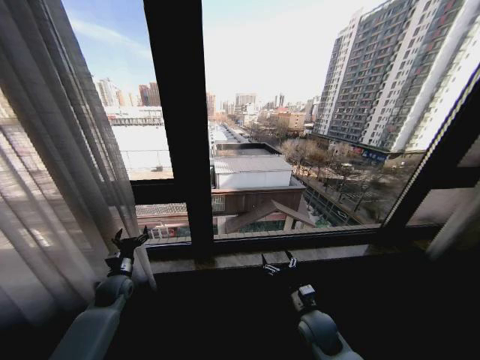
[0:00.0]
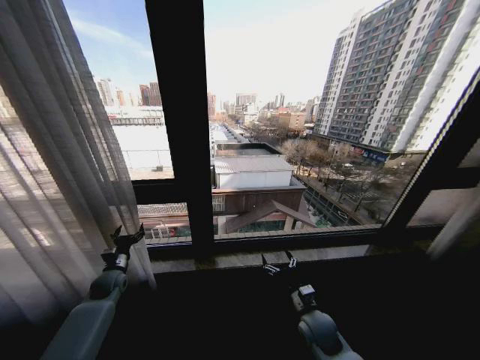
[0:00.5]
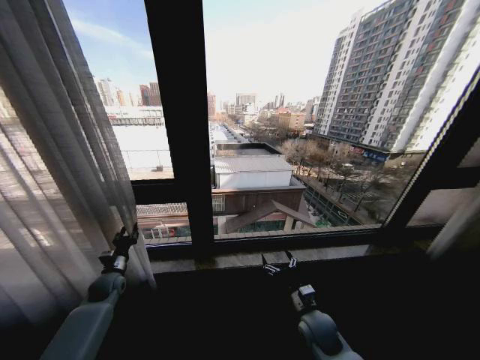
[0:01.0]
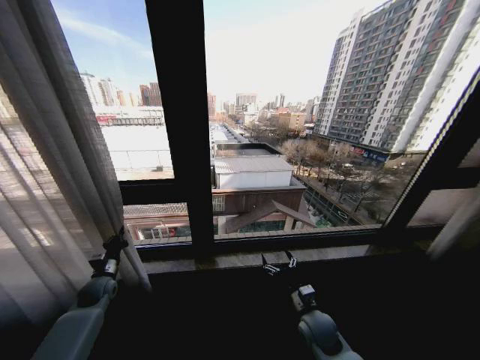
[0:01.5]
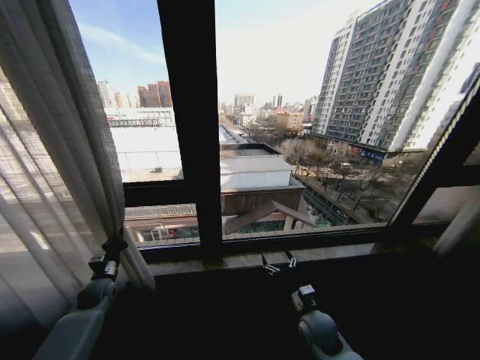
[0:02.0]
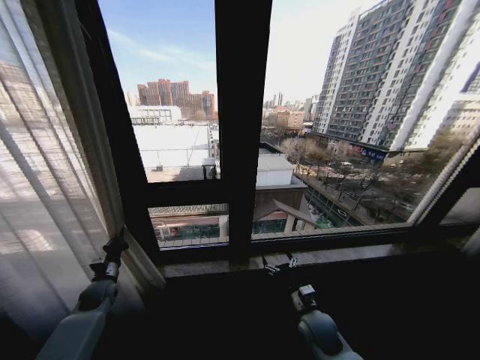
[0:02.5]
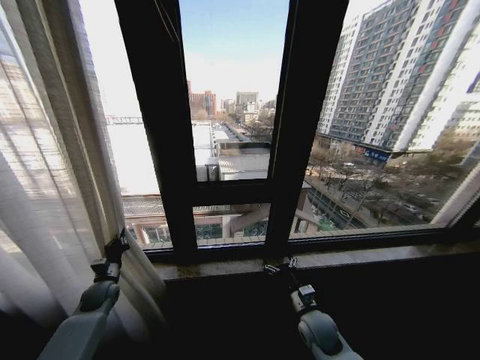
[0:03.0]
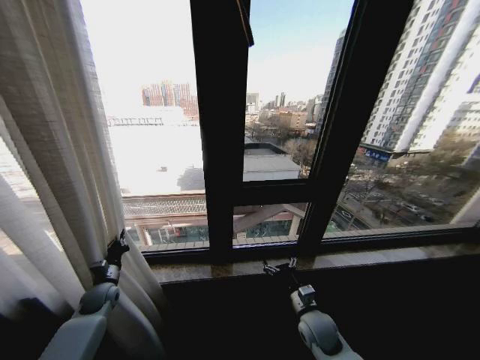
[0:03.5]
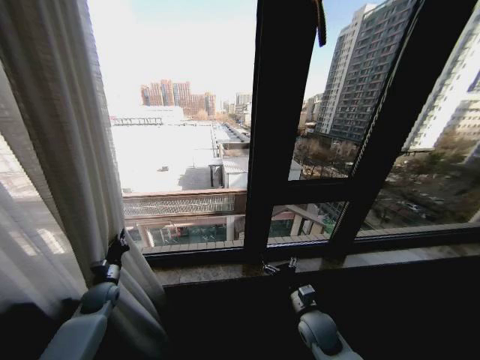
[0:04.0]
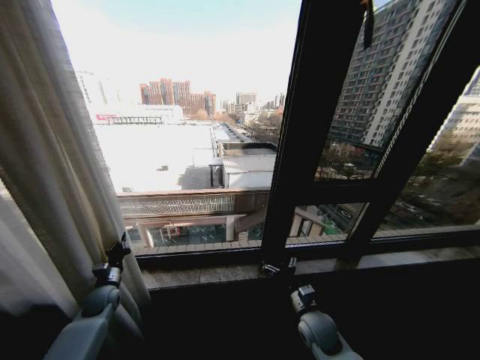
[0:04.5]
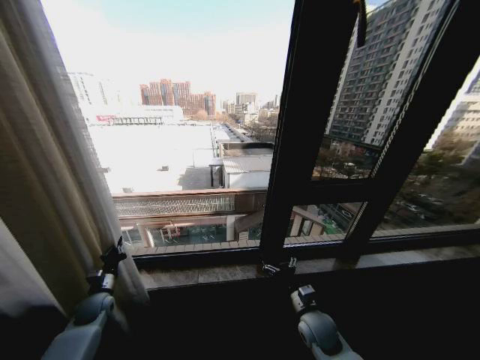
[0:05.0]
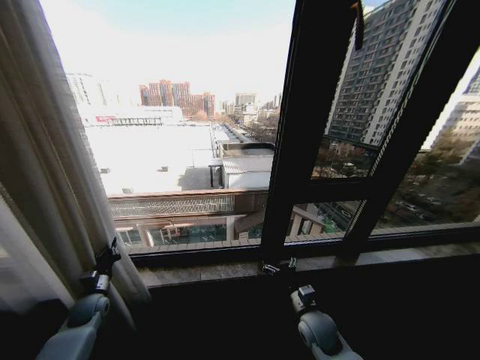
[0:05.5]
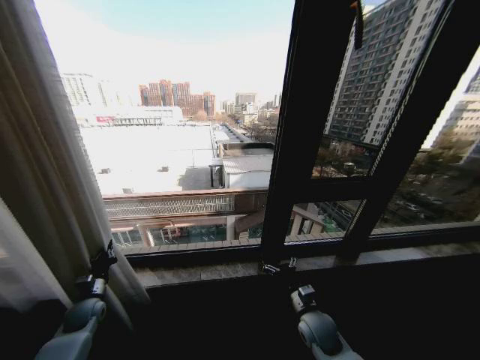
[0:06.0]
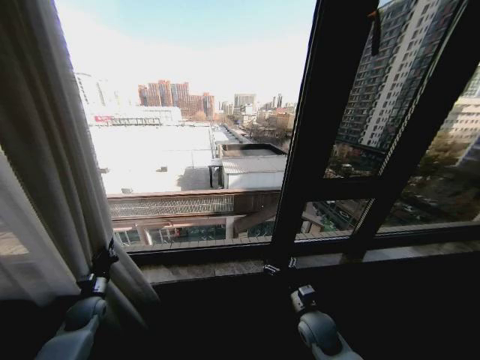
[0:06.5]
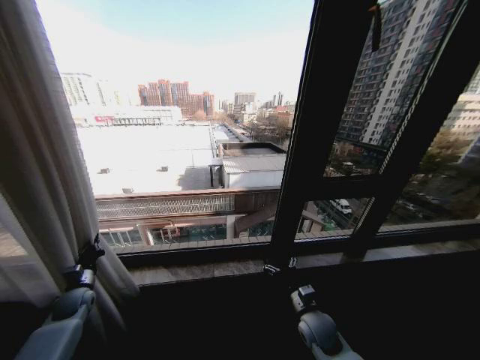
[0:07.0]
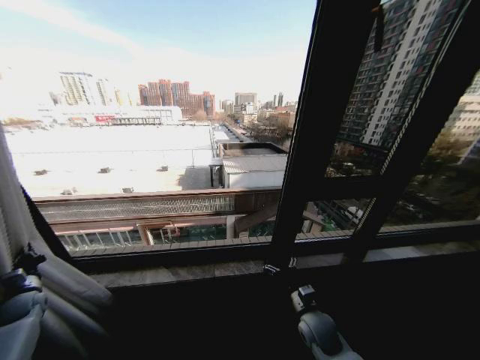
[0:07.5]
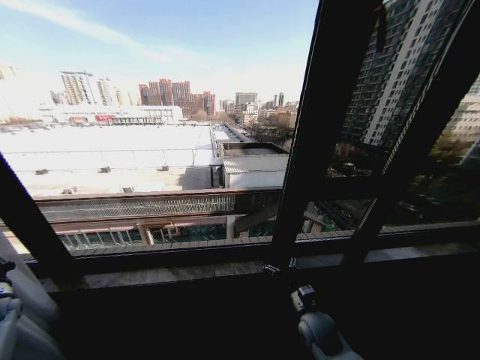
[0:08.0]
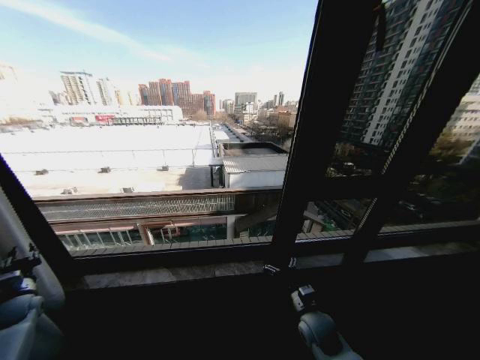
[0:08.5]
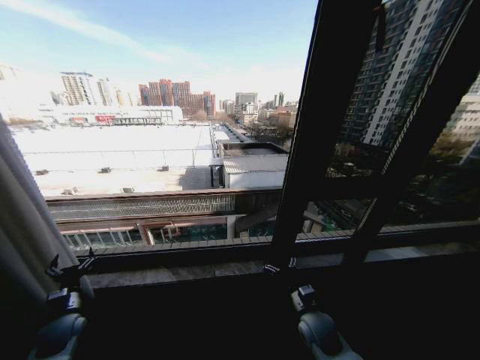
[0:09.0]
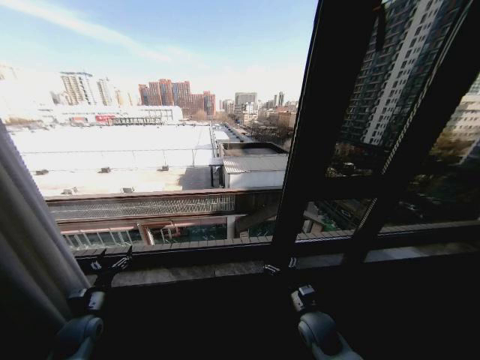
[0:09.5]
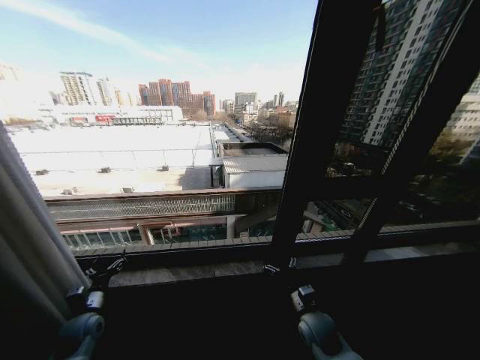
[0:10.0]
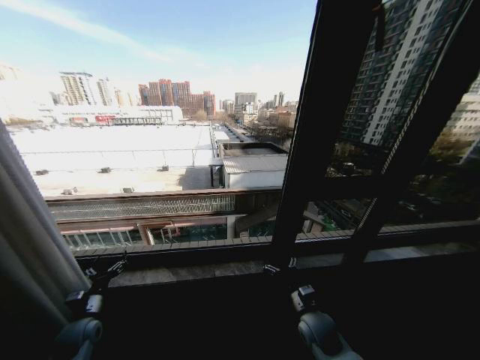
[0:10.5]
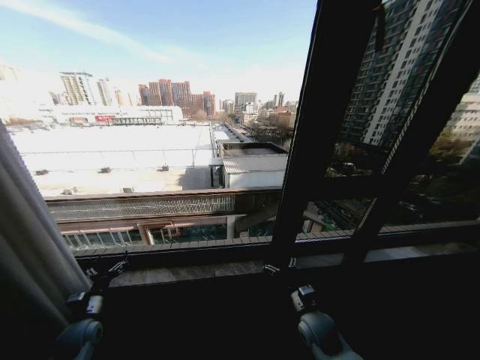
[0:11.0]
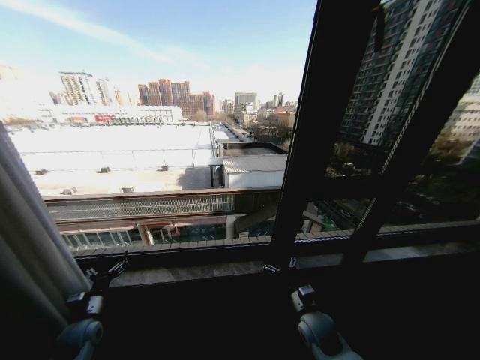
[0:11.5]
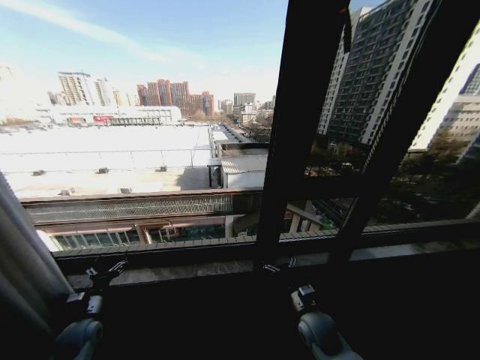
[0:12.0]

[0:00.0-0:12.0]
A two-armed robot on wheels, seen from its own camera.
Task of the whole recording: Open the curtains by pulling them apart, changing their state from closed to fully open.
0:00.0 to 0:02.0: The left gripper travels to the left by some 5 cm, and closes up.
0:04.0 to 0:06.0: The left gripper moves about 5 cm.
0:06.0 to 0:08.0: The left gripper is displaced to the left by some 20 cm.
0:08.0 to 0:10.0: The left gripper shifts about 25 cm to the right, and opens.
0:10.0 to 0:12.0: The grippers move only a little.
